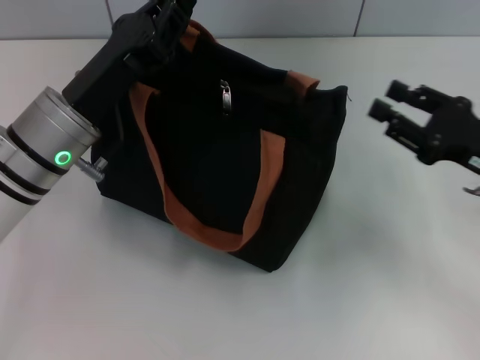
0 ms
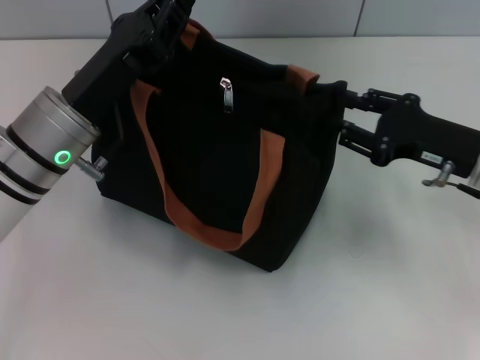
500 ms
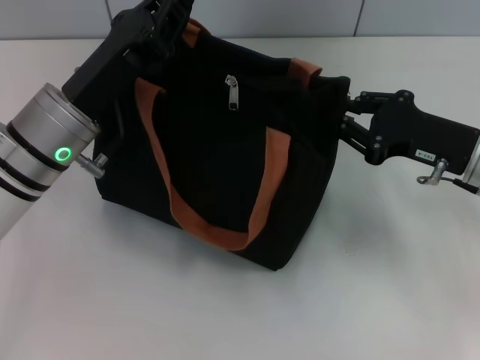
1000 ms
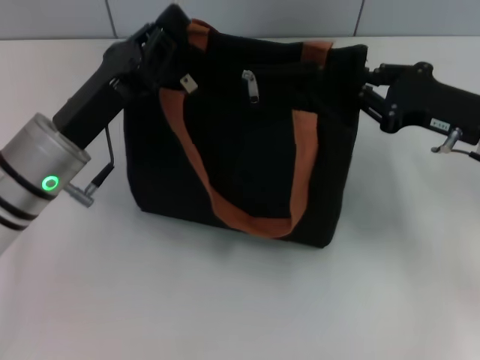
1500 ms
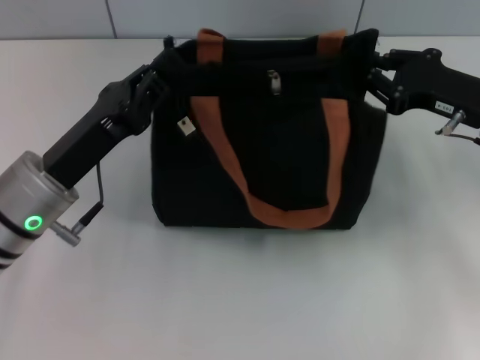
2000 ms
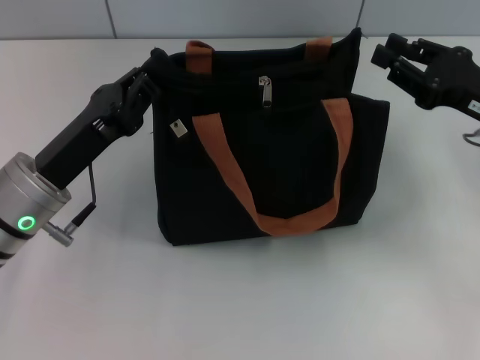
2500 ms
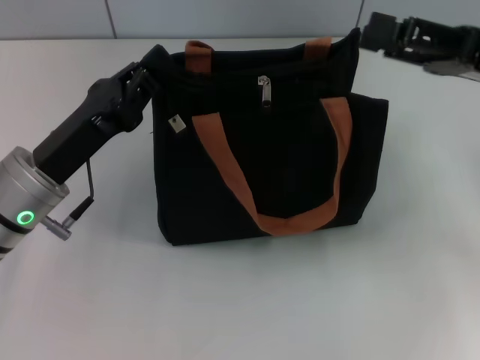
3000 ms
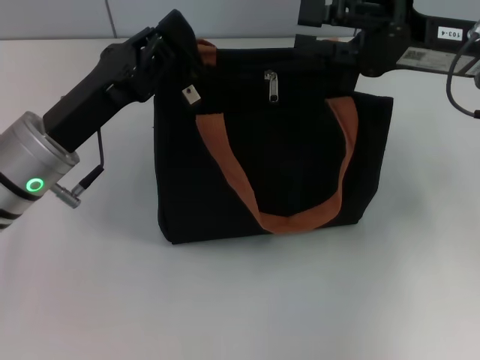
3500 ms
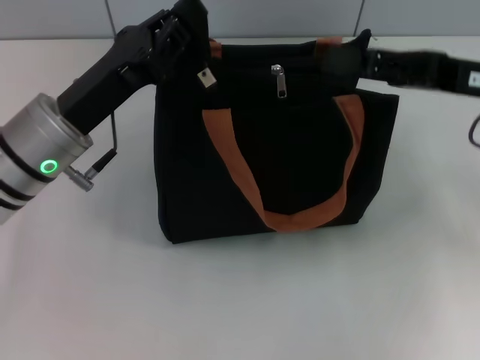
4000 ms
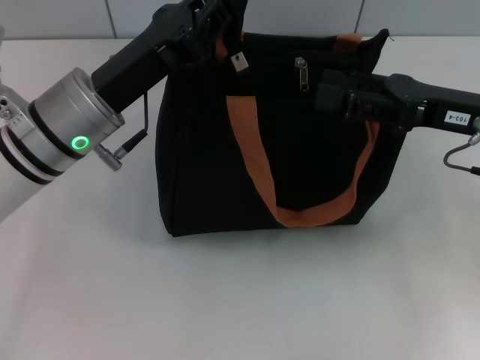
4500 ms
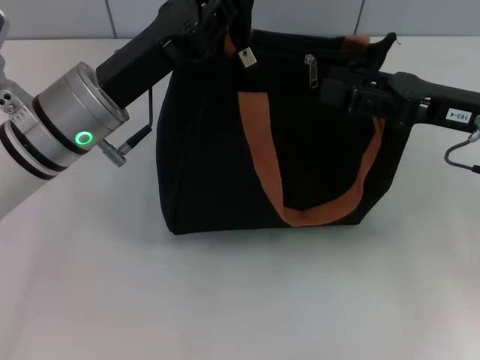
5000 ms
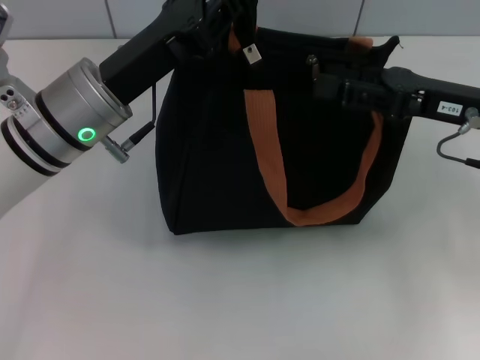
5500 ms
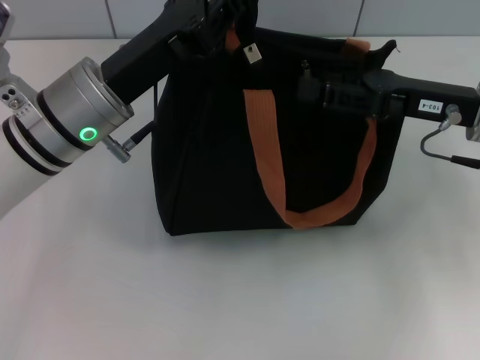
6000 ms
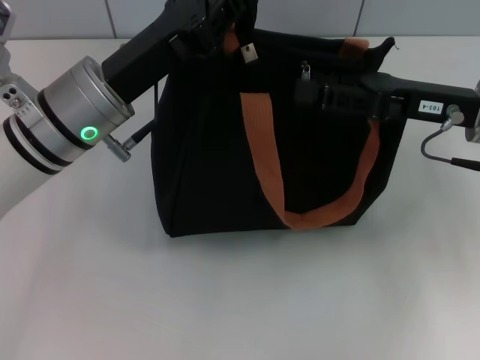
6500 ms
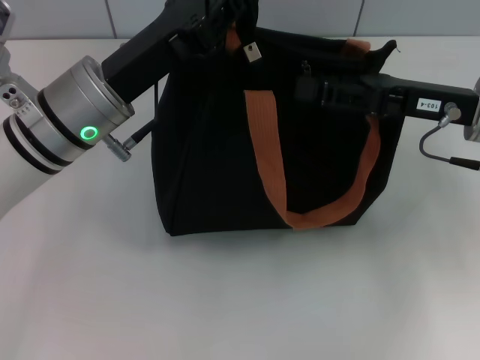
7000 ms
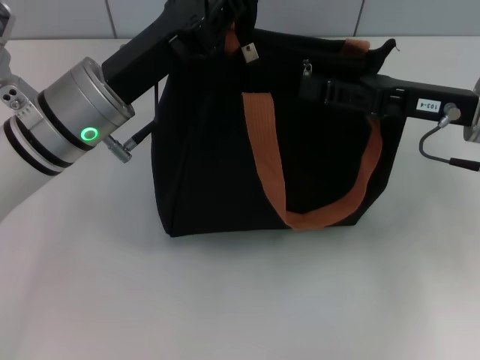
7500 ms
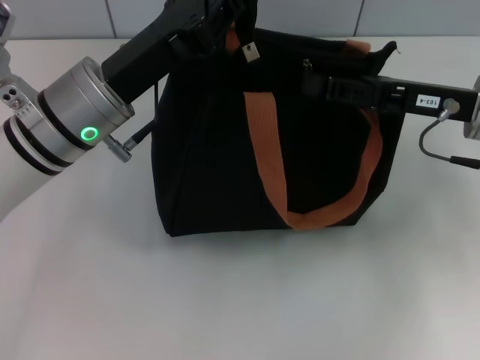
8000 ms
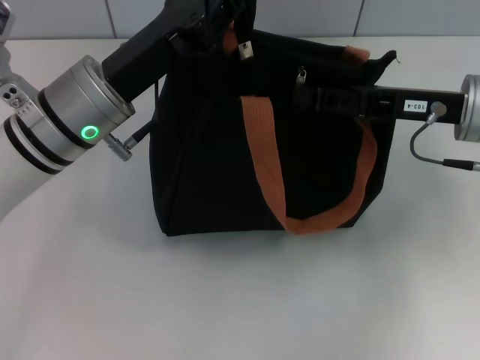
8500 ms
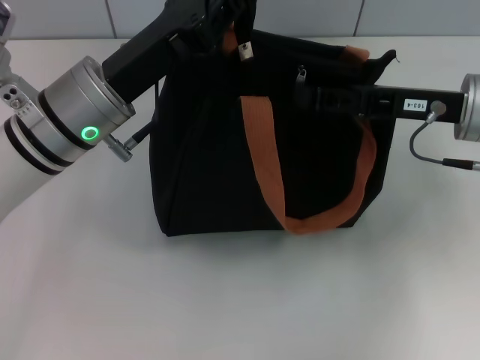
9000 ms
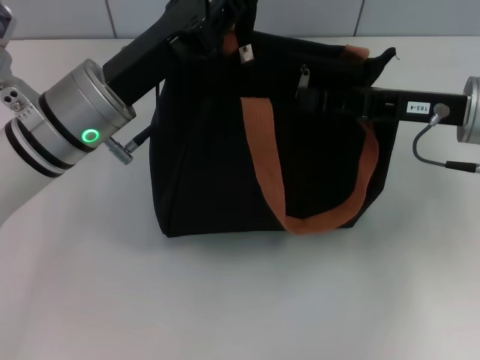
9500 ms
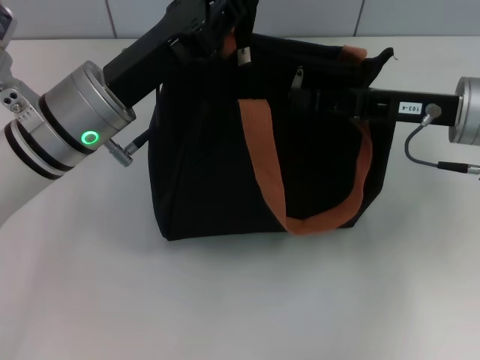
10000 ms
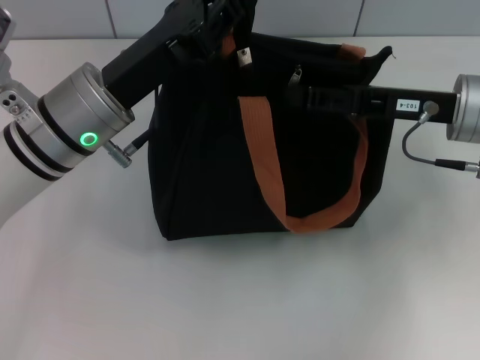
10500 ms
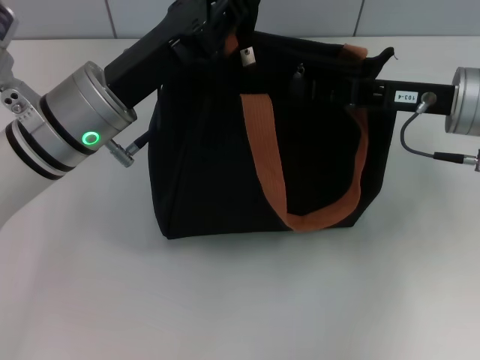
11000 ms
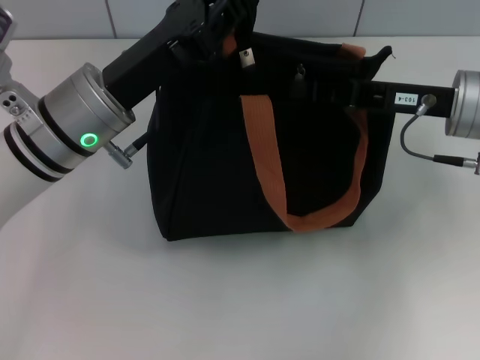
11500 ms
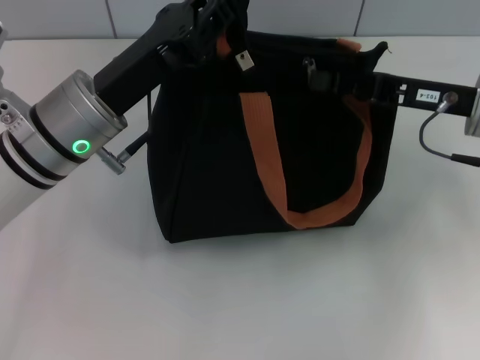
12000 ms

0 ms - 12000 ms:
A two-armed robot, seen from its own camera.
0 ms - 2000 ms: The right gripper goes some 5 cm forward. Meanwhile the left gripper ends up some 5 cm from where it was.
2000 ms - 4000 ms: The left gripper shifts by roughly 5 cm; the right gripper moves upward, approximately 5 cm, and opens its fingers.
6000 ms - 8000 ms: The right gripper closes.
8000 ms - 10000 ms: Both grippers stay about where they are.
10000 ms - 12000 ms: The grippers stay close to where they were, moving slightly.

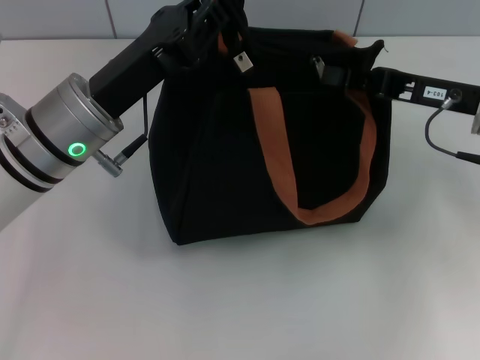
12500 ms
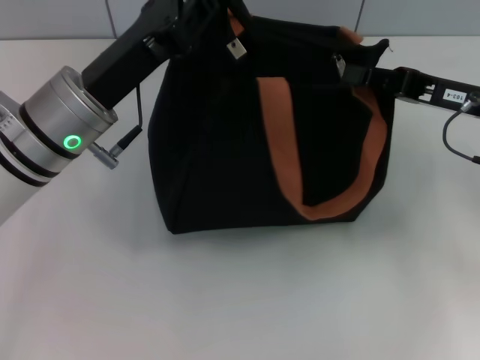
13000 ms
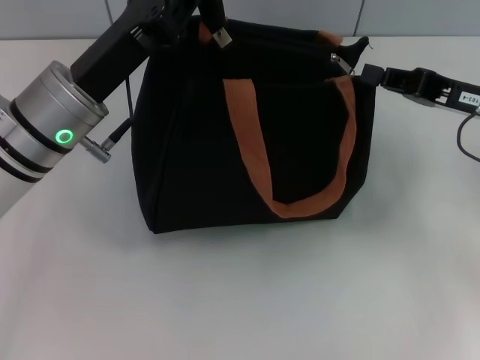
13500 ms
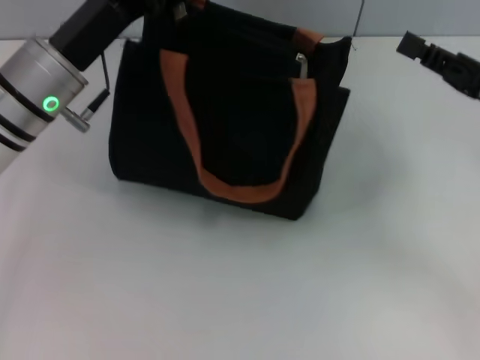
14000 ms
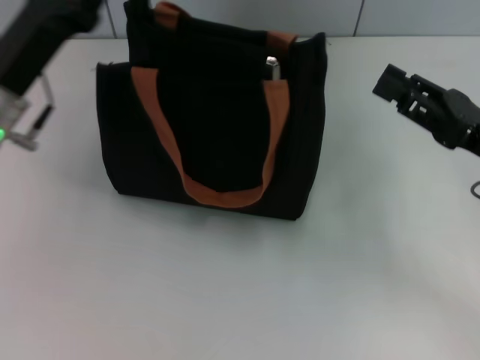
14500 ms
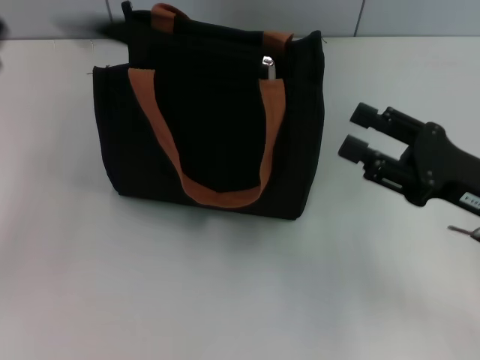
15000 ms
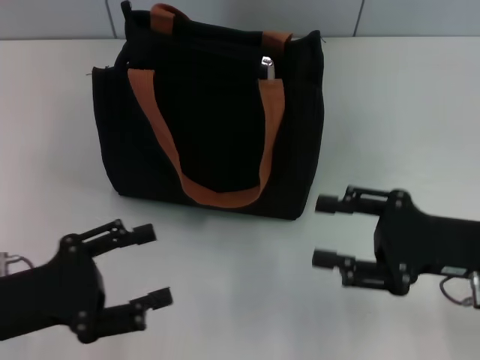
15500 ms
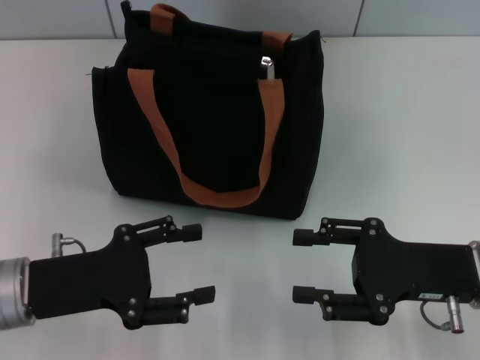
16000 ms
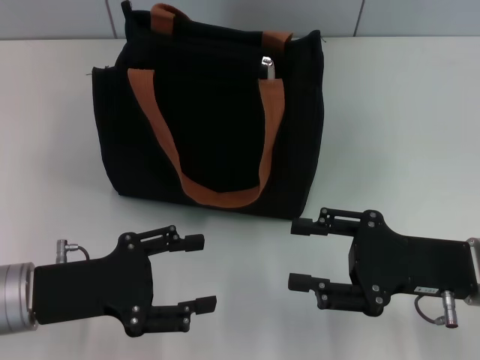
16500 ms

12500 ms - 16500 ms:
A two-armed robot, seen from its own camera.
Step, 13500 ms - 14500 ms: Grab the zipper with your left hand.
12500 ms - 14500 ms: The right gripper shifts roughly 5 cm backward. Meanwhile the left gripper shifts some 5 cm to the left.
14500 ms - 16500 ms: The right gripper moves about 10 cm, and opens its fingers; the left gripper heads backward and downward, covering roughly 10 cm, and opens.

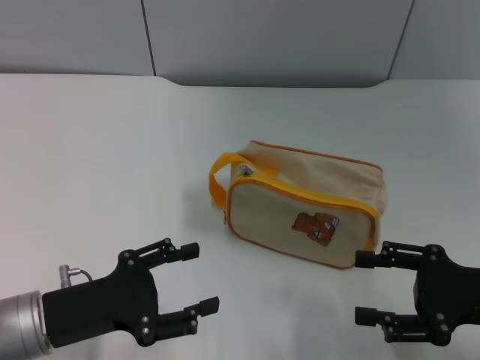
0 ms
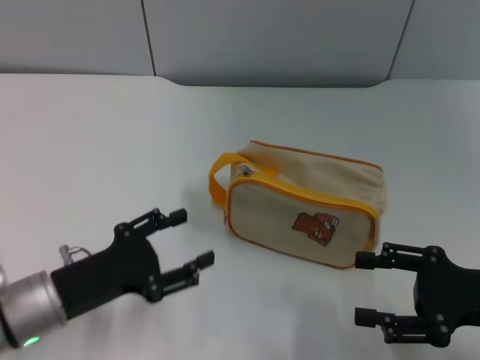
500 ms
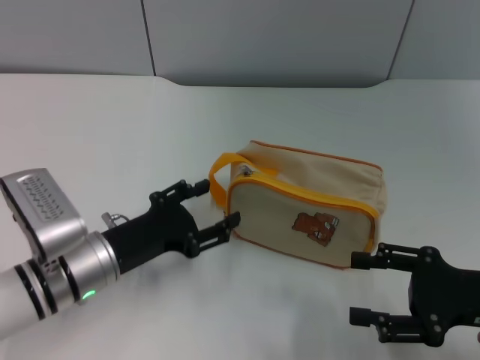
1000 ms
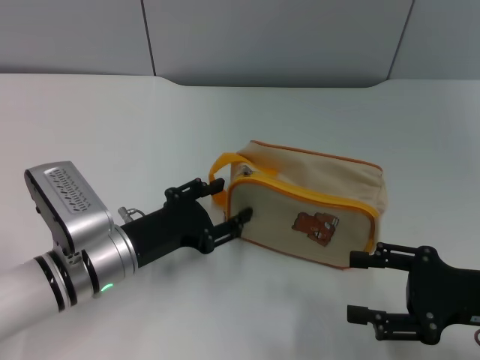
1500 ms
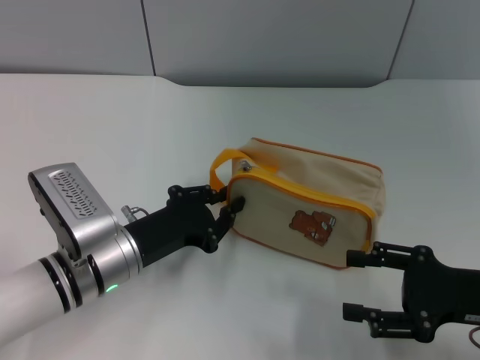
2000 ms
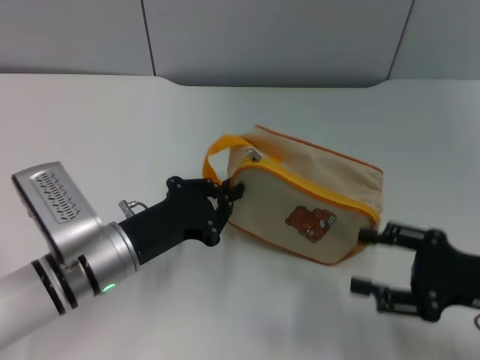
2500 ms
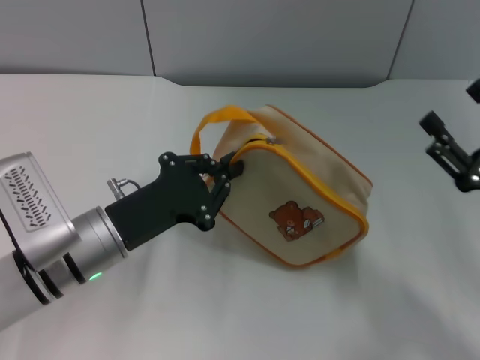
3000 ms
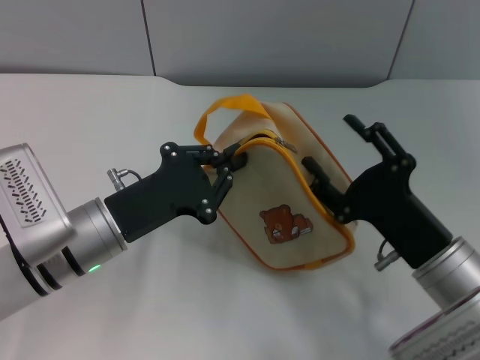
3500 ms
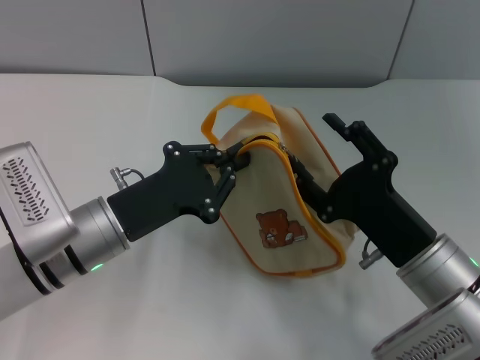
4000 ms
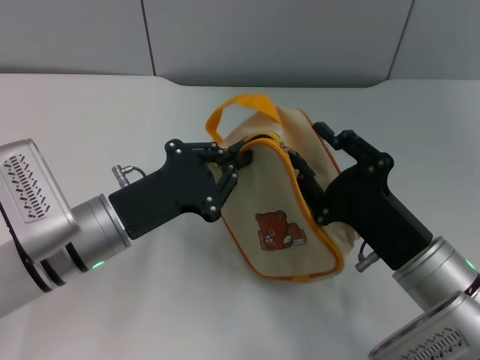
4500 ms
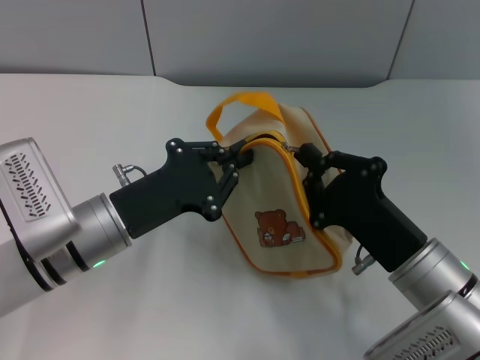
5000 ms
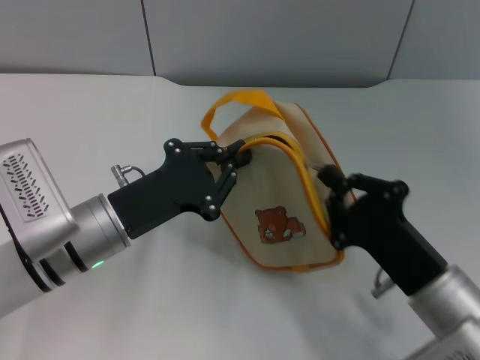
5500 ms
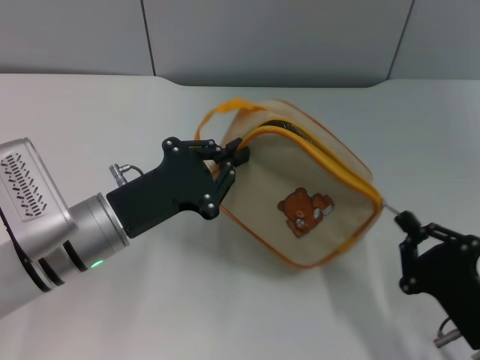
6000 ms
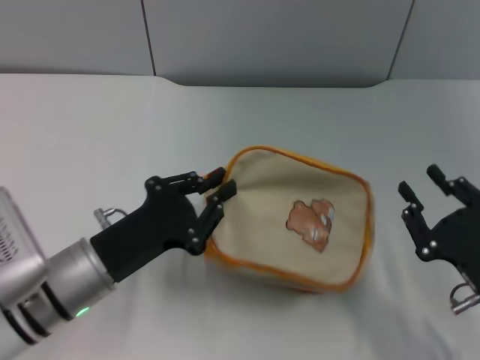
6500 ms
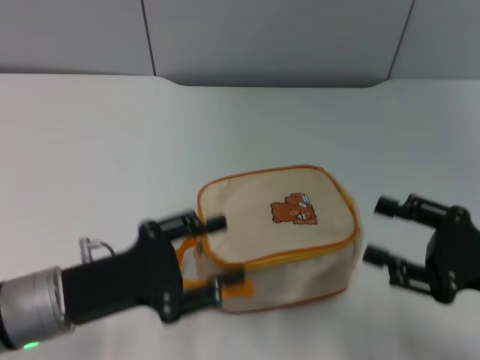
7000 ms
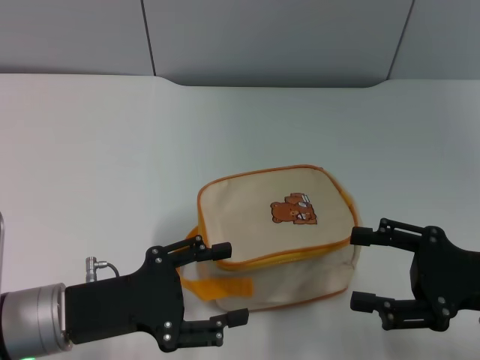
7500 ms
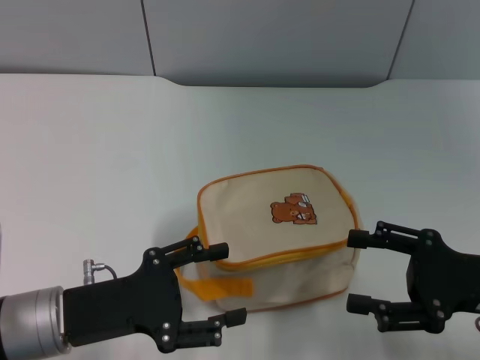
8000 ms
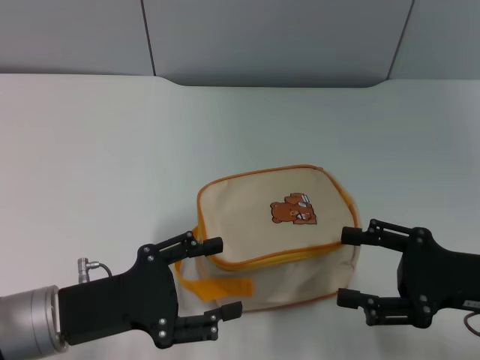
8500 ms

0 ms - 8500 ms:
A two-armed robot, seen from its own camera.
Step, 0 ms - 2500 ms: Pick up the bag with left gripper.
Step, 3000 ms - 6000 ms: Unzip the zipper of bag with right gripper.
0 ms - 2000 ms: The left gripper moves forward and to the right, approximately 10 cm, and closes up.
2000 ms - 4000 ms: The right gripper heads to the left, covering approximately 10 cm. Meanwhile the left gripper closes its fingers.
4000 ms - 6500 ms: The right gripper goes about 10 cm to the right, and closes.
6500 ms - 8500 ms: The right gripper heads upward, covering about 5 cm, and opens. Meanwhile the left gripper opens its fingers.
